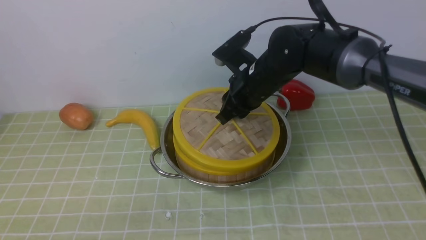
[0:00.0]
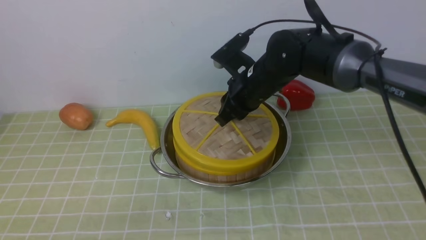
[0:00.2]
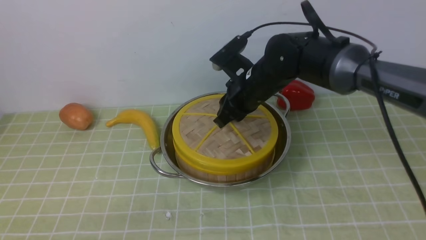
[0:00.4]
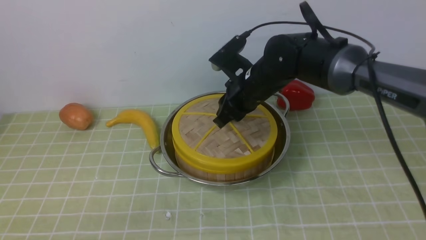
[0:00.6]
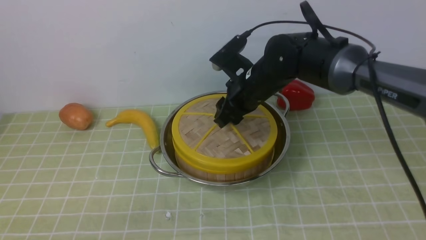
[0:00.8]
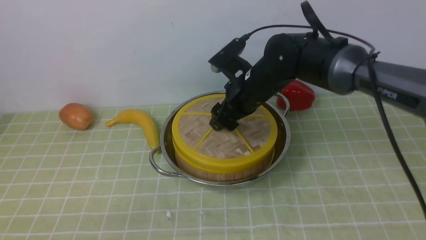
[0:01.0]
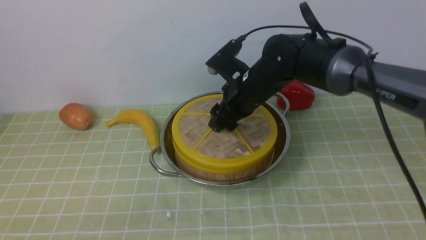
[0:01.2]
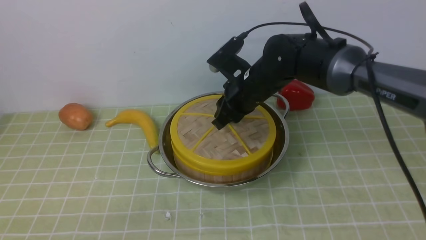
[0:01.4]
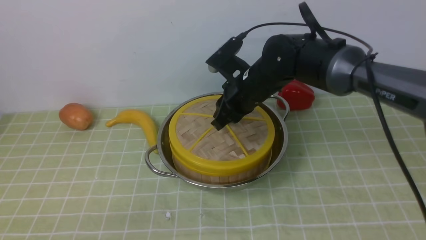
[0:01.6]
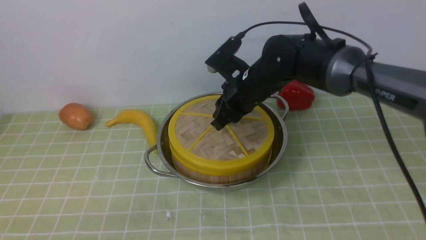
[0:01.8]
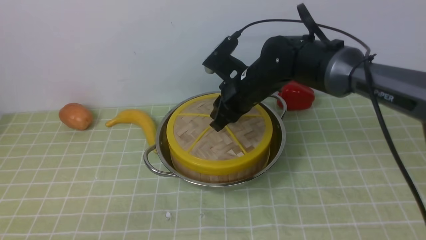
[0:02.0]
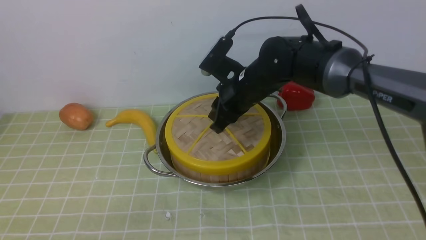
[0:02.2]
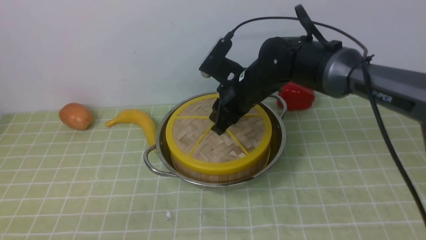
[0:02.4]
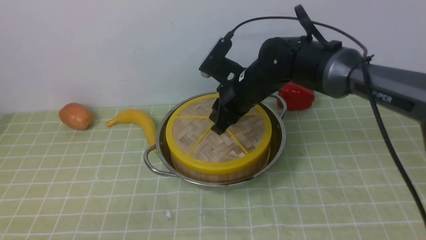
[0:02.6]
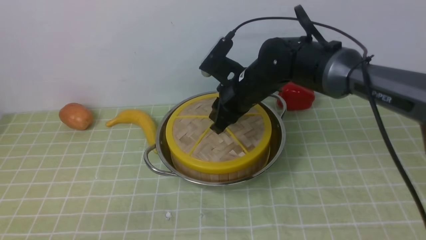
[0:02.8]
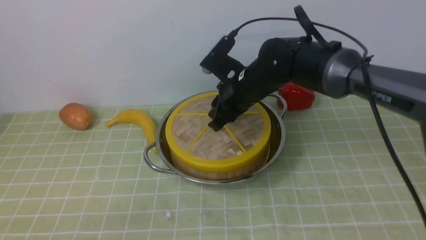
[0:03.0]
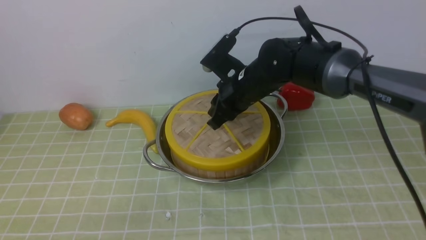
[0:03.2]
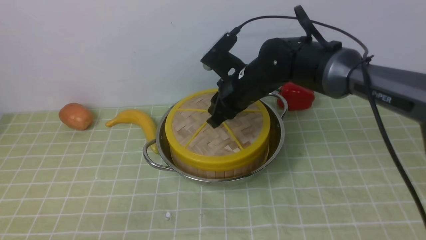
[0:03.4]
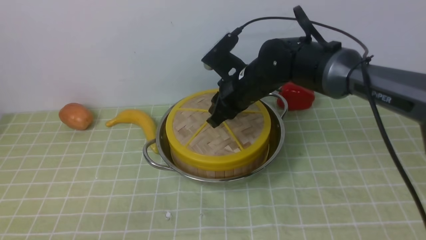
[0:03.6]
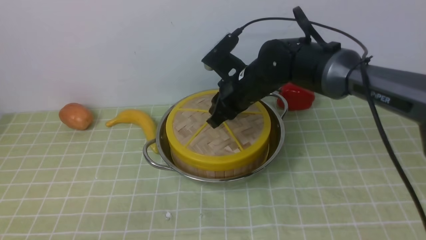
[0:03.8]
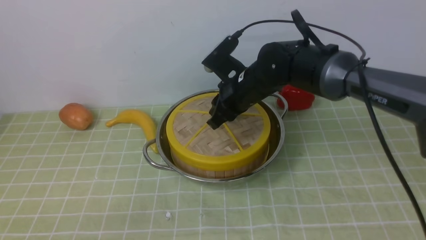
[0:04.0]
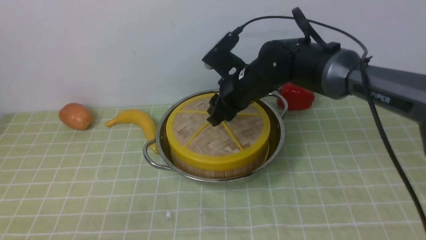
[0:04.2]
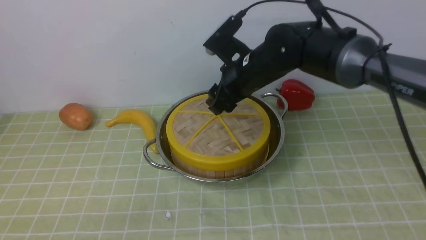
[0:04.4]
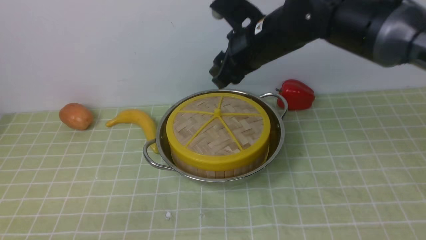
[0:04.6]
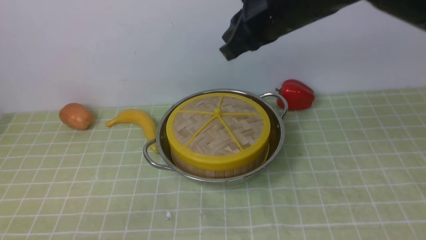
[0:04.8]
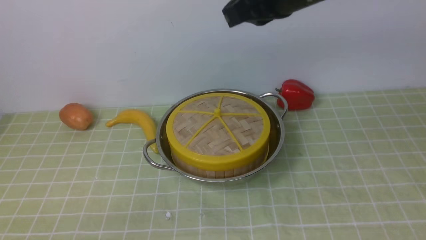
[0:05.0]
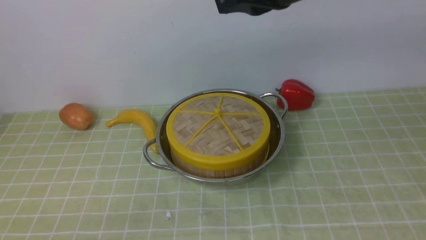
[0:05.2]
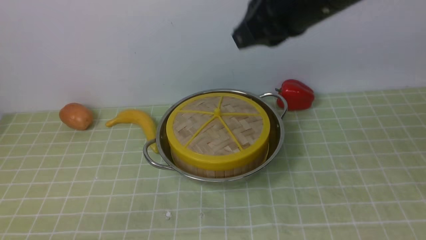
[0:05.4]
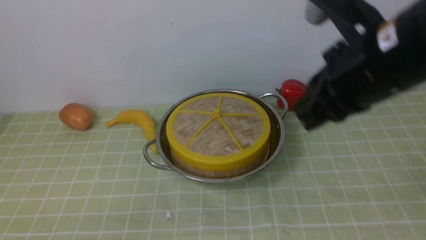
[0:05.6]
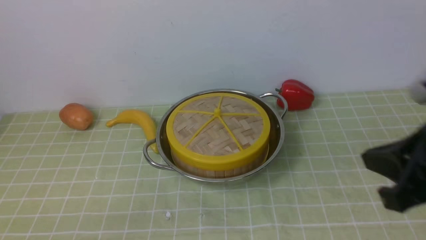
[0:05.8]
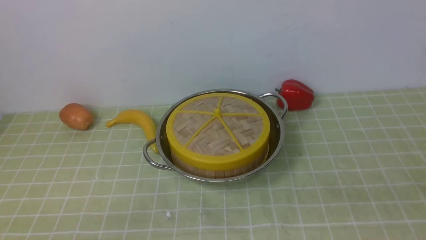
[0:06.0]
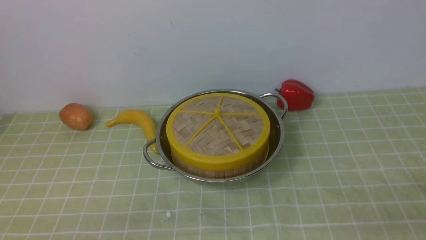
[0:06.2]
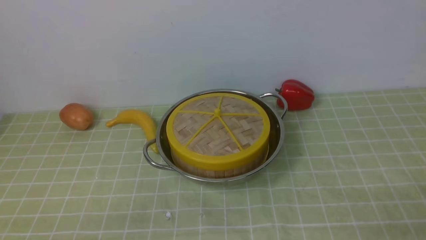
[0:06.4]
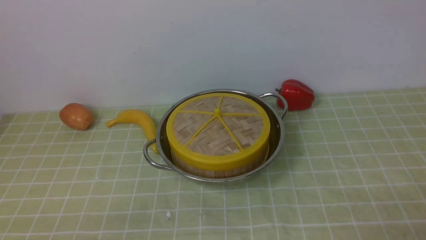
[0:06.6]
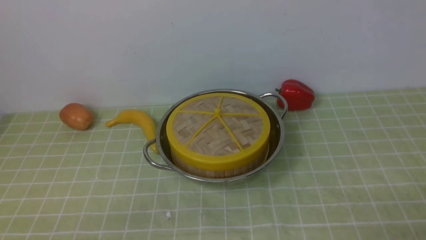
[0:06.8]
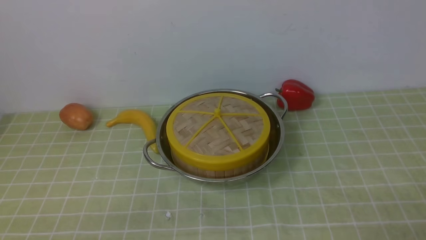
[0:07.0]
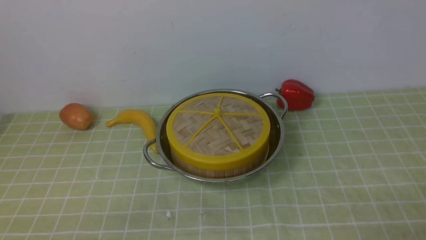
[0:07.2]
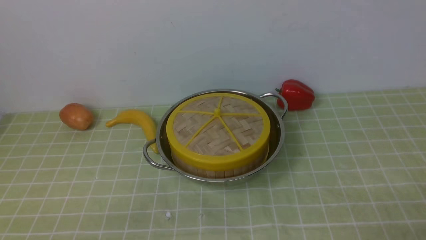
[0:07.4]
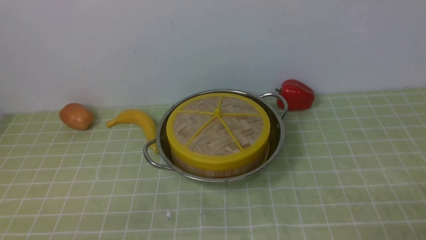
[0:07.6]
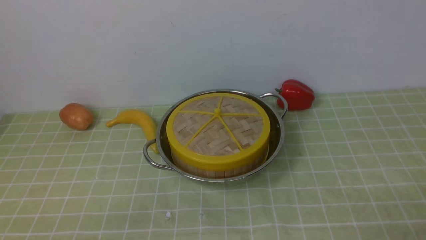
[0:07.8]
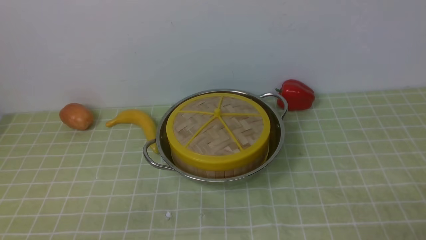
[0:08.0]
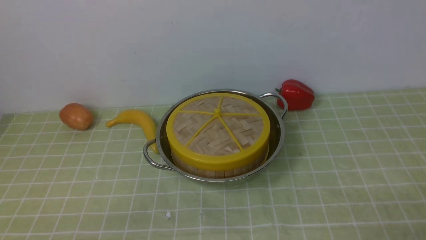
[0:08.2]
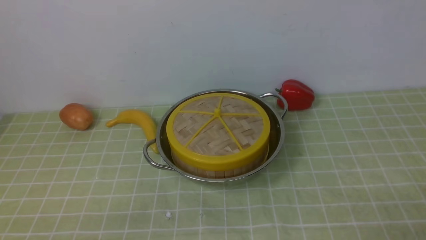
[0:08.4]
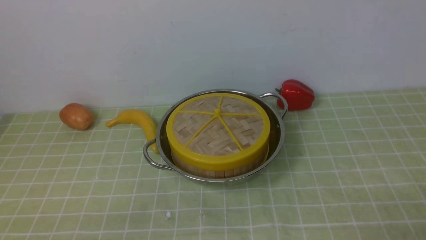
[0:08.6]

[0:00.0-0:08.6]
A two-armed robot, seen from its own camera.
Task of the whole recording: place the steamer in the pot on the green tablecloth, and put the lid on the steamer.
Step, 0:00.0 to 0:04.2: use the right arm to place the steamer lid on the steamer.
0:00.0 to 0:01.4: The right gripper opens, then closes again.
0:01.4 to 0:02.8: The grippers stay close to where they were, moving slightly.
0:02.8 to 0:04.4: The right gripper is displaced upward by approximately 5 cm, and opens up.
0:04.4 to 0:05.8: The right gripper shifts about 30 cm backward and to the right, and closes.
0:05.8 to 0:07.2: The right gripper goes roughly 20 cm downward, backward and to the right, and opens.
0:07.2 to 0:08.6: Neither gripper changes place.
